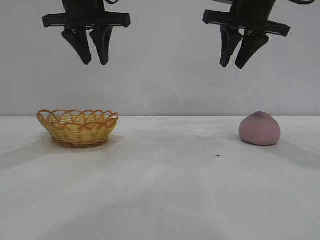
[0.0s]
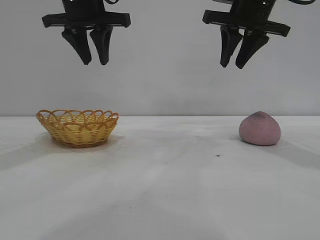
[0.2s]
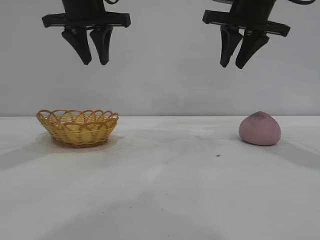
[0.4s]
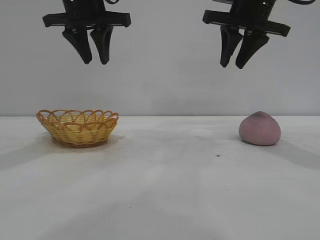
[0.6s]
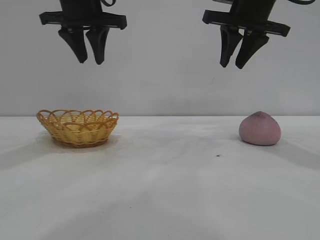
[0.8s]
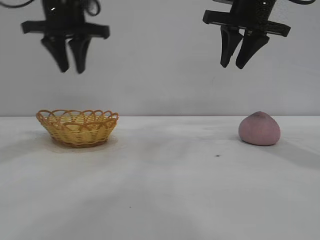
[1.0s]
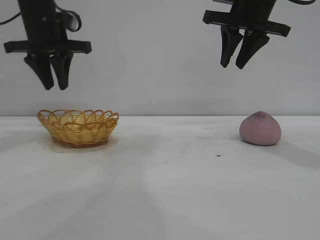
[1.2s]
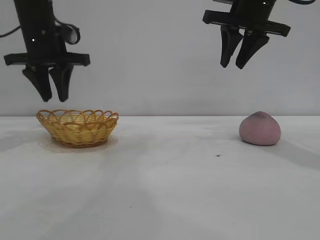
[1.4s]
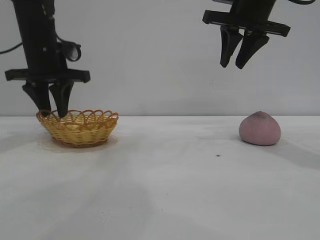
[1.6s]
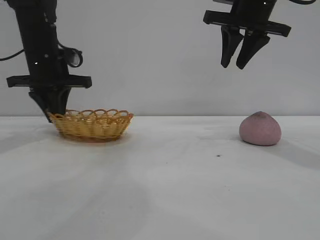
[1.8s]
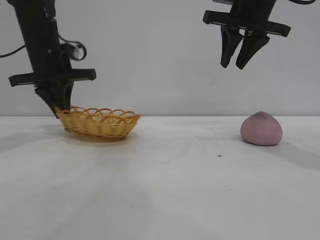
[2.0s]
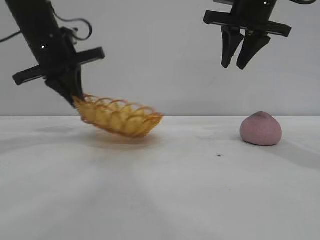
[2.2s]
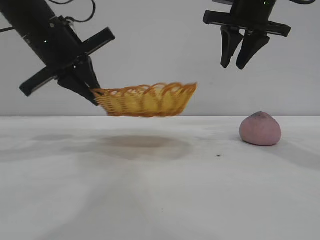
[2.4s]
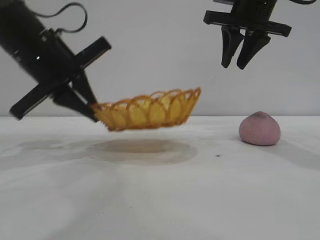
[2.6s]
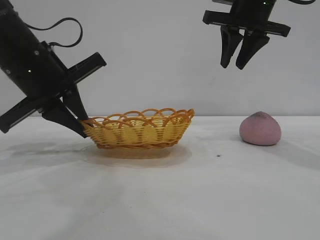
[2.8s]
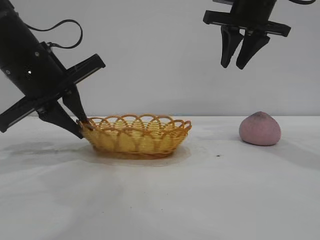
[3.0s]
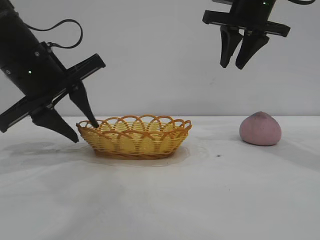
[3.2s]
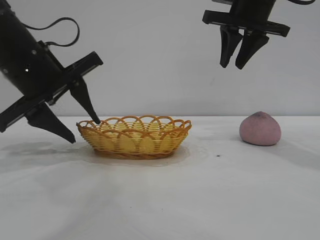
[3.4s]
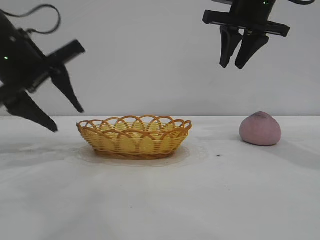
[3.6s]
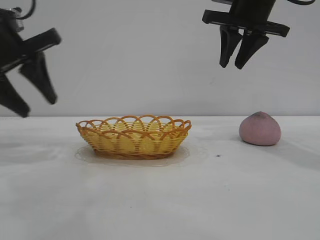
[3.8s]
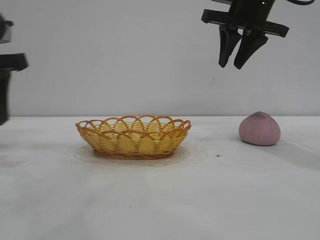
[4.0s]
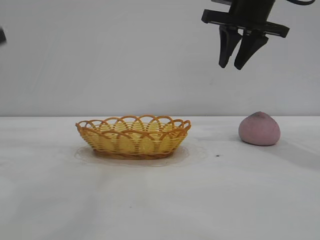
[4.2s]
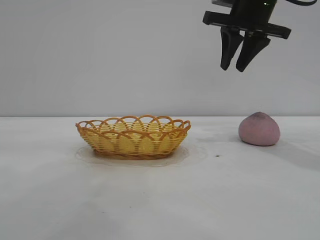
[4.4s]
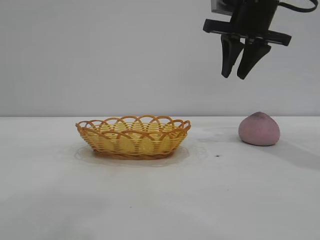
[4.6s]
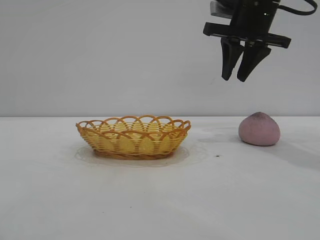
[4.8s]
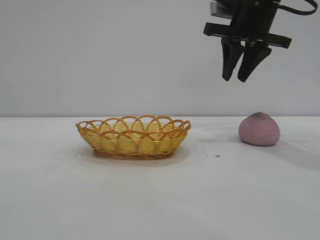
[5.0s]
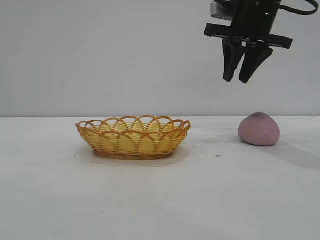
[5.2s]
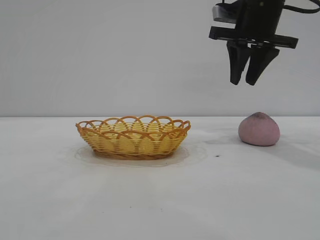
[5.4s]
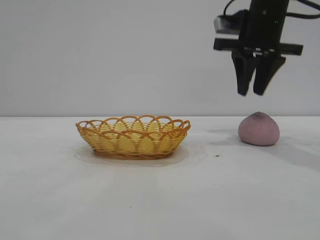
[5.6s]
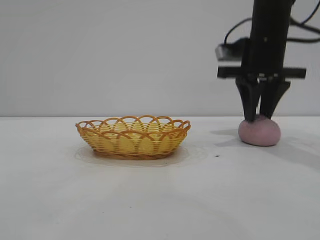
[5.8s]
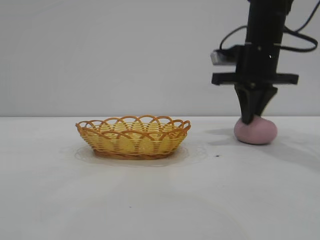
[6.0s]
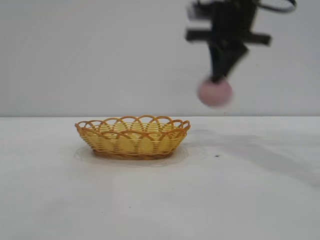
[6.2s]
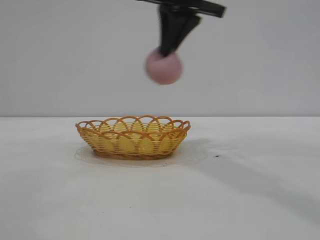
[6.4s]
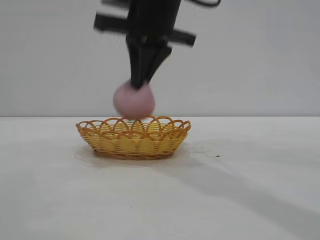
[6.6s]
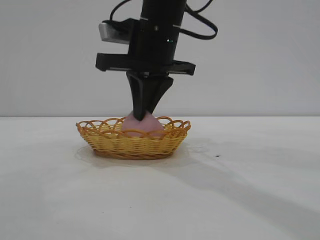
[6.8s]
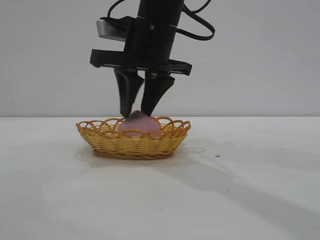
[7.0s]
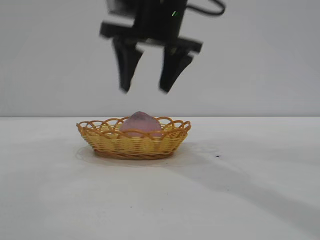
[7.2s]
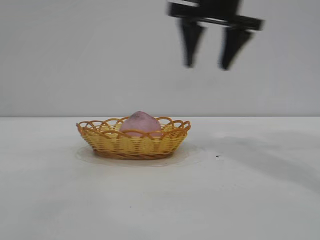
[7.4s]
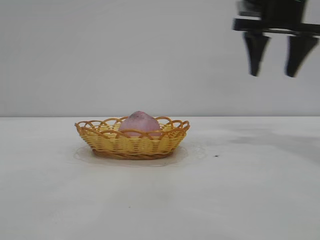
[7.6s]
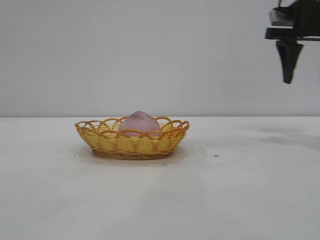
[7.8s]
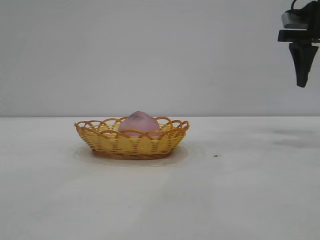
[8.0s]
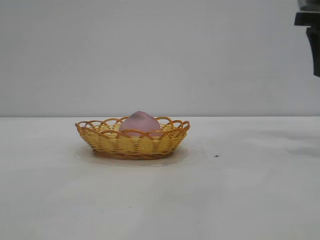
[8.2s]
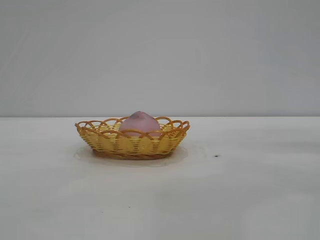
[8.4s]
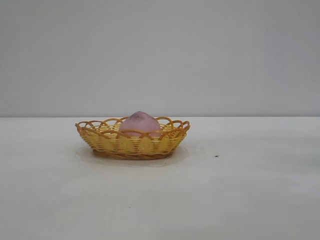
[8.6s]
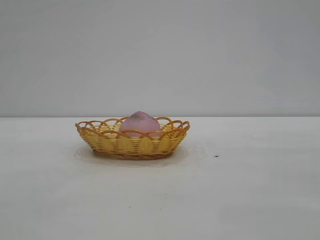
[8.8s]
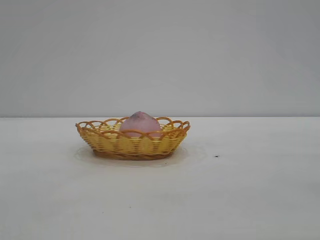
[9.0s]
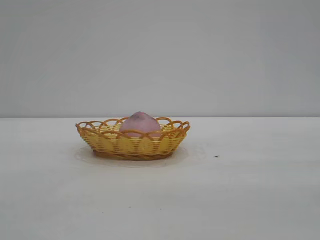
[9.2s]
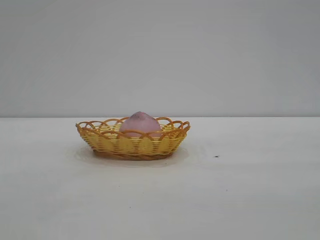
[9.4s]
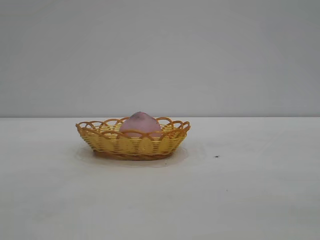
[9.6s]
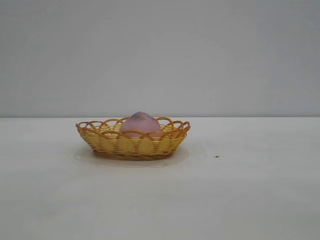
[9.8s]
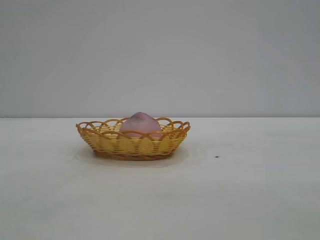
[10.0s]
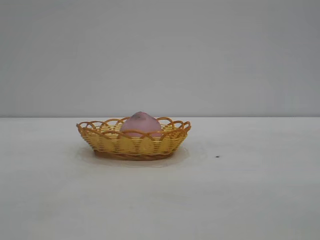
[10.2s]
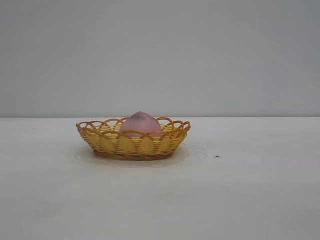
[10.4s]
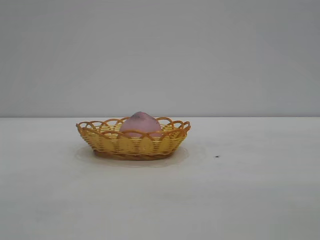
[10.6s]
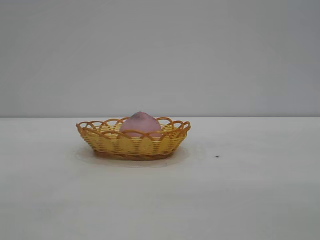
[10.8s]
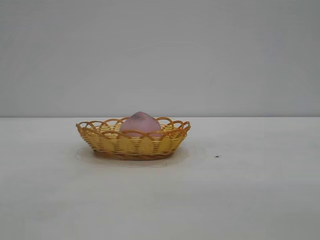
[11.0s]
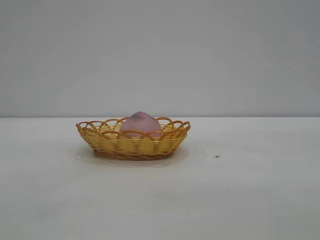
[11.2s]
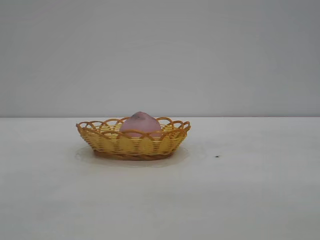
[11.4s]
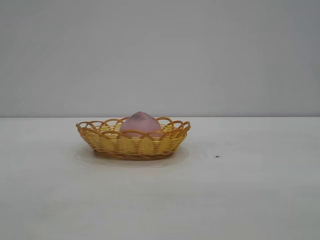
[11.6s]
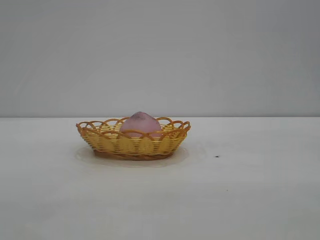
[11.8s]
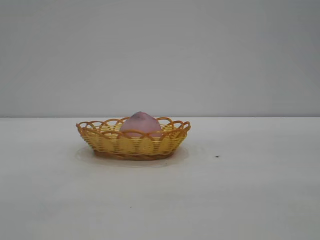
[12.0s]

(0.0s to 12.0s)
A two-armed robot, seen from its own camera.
Task of the whole recording: pick up the peach and put it into the basket.
Step, 0.0s - 3.6s: Move the basket to the center of view.
Step, 3.8s - 6.0s: Pick up the peach.
Step, 6.2s - 7.2s: place the peach into the basket.

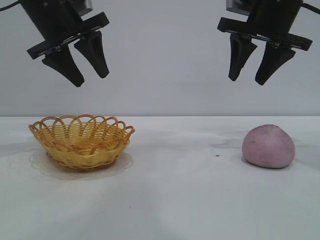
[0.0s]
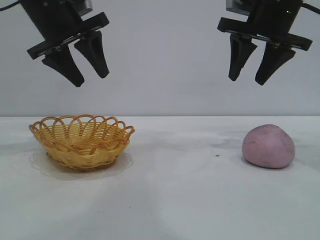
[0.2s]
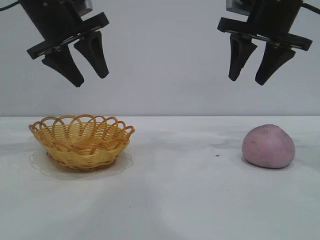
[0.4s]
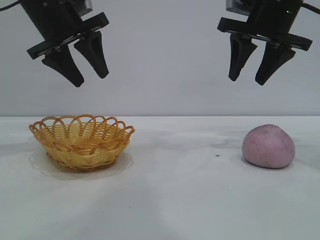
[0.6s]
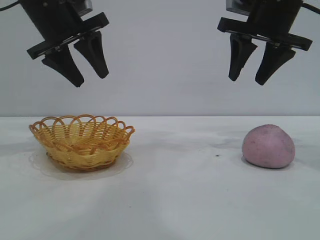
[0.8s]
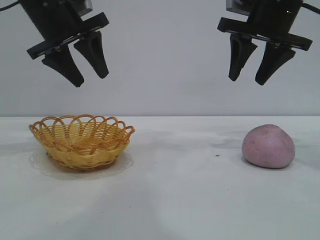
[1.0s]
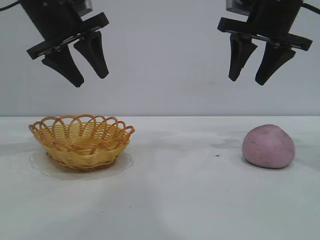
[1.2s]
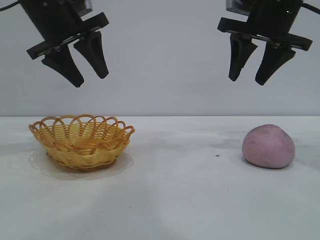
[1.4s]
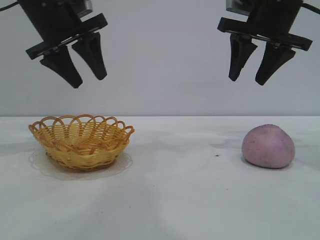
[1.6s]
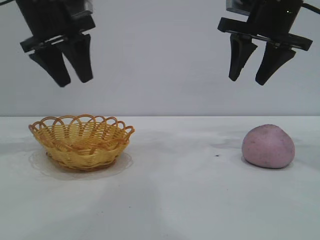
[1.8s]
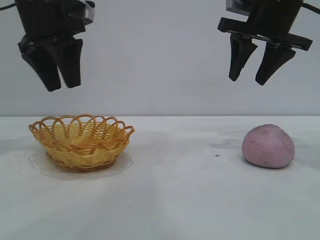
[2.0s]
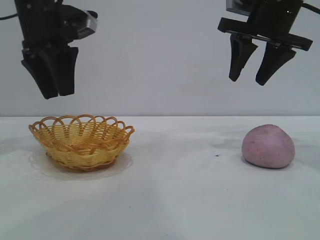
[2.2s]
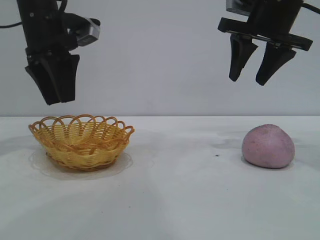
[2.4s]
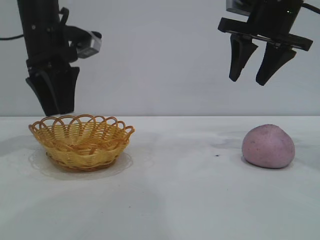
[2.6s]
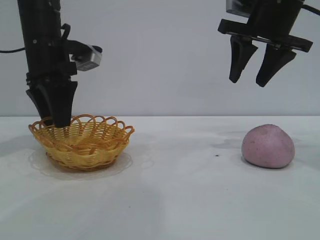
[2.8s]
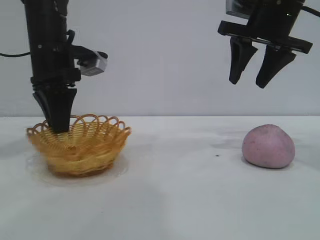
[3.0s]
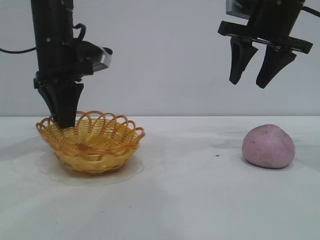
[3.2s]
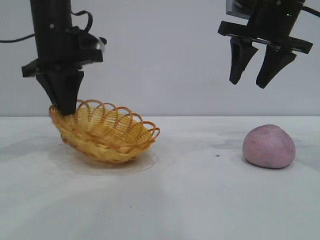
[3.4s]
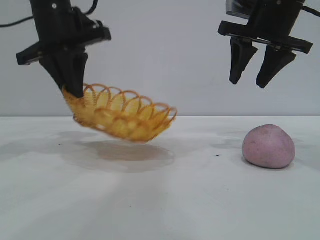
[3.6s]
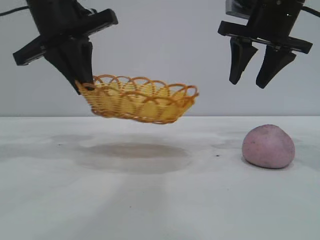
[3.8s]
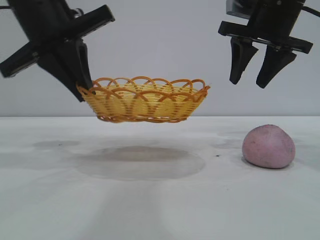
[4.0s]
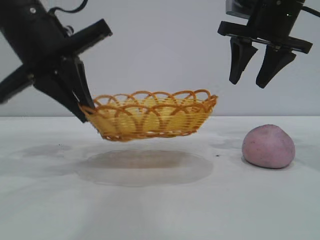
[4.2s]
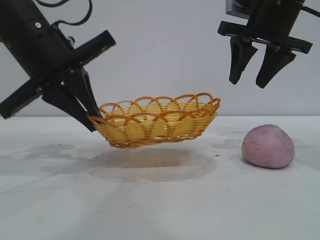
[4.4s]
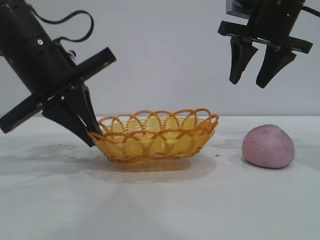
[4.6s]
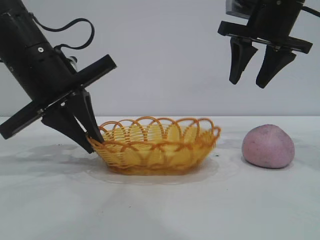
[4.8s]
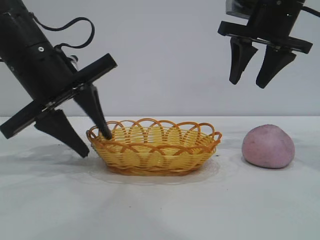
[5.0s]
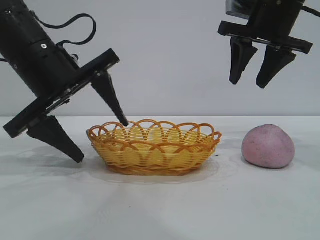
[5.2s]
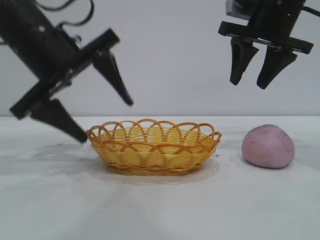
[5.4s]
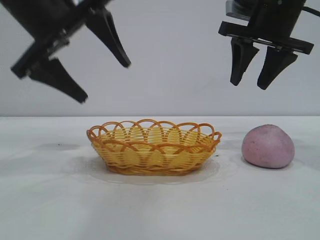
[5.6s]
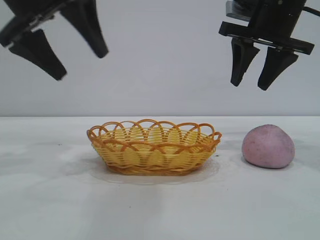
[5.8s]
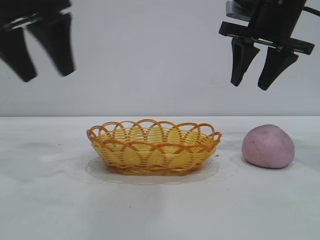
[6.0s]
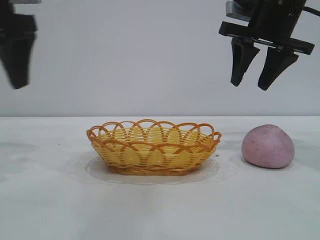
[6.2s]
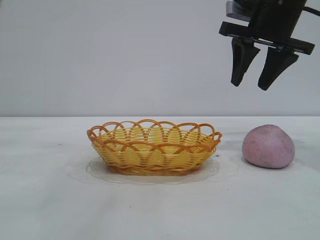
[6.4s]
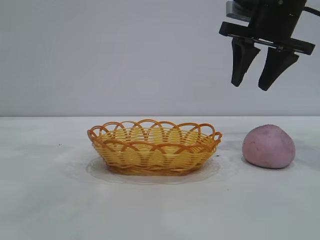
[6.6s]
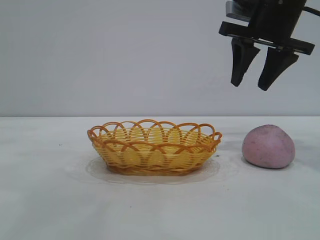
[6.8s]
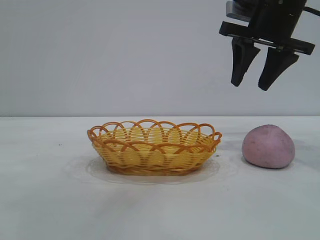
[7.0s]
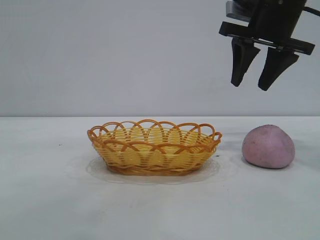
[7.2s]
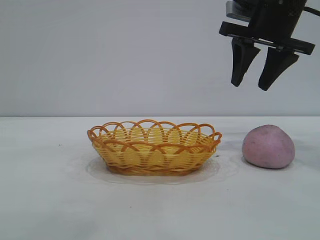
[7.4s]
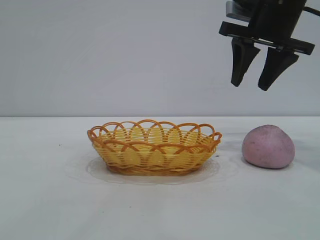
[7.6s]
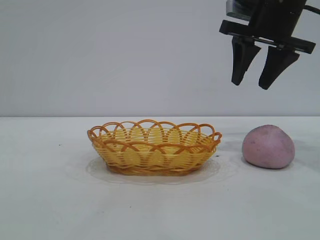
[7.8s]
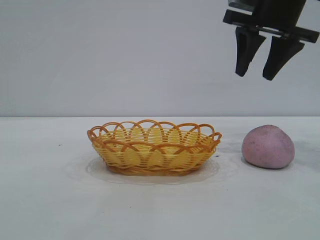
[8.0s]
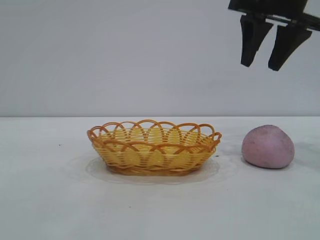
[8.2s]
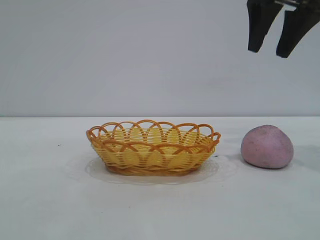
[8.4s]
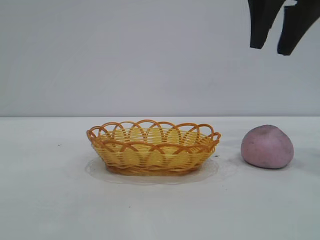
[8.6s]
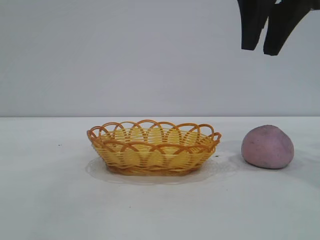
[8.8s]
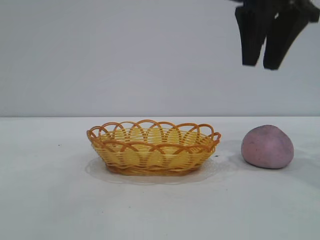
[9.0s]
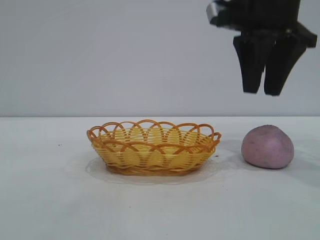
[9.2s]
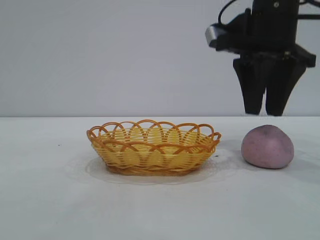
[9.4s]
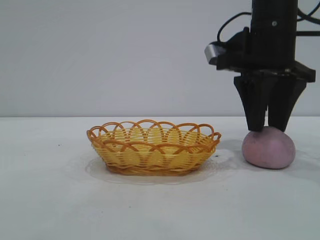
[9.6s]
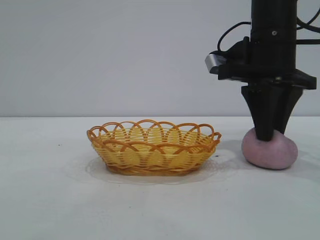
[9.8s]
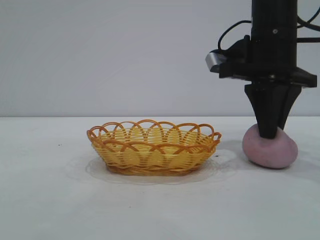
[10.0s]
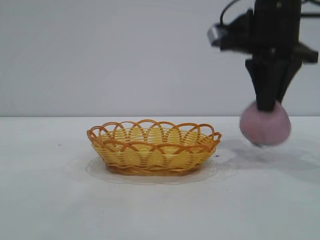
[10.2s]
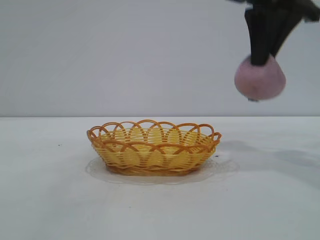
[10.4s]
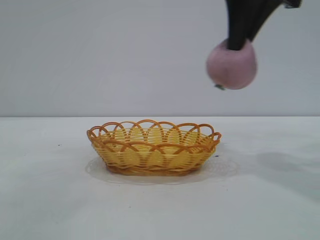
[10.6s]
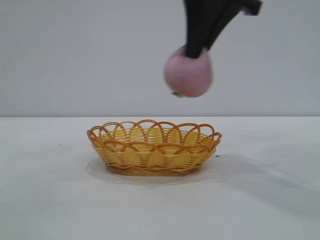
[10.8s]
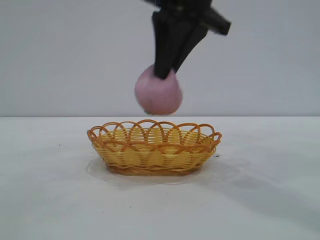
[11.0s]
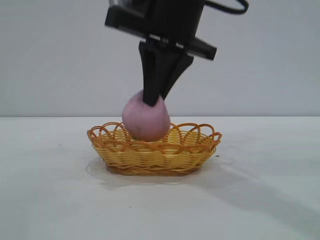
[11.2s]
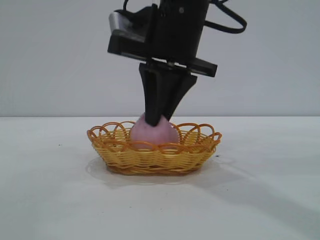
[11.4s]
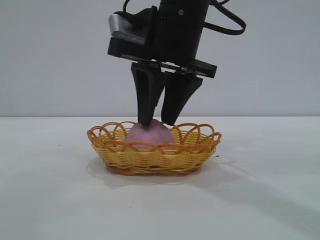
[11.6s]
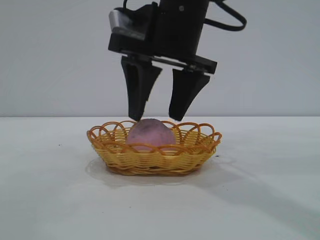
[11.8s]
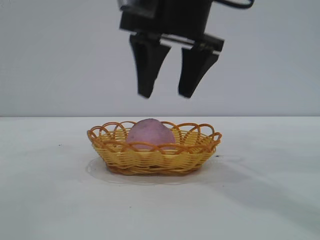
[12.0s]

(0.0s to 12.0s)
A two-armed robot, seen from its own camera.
Task of the whole recording: pick up the peach and put it into the basket.
Step, 0.0s - 5.6s: Move the basket to the center of view.
Step, 5.8s - 10.2s: Pick up the peach.
